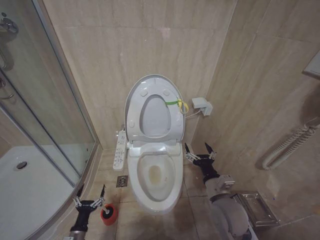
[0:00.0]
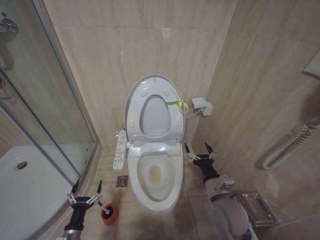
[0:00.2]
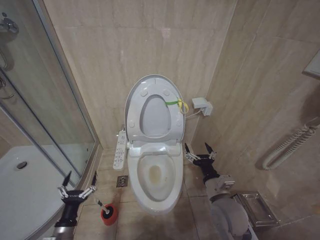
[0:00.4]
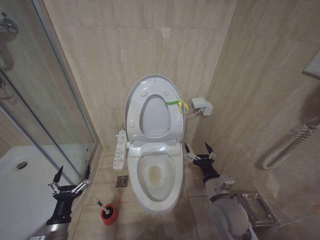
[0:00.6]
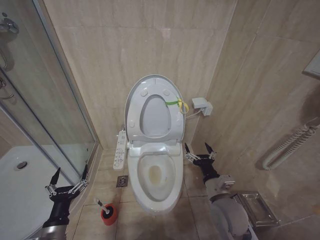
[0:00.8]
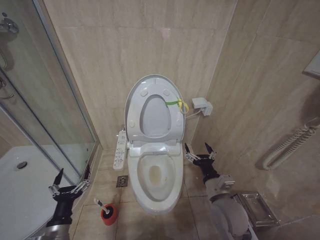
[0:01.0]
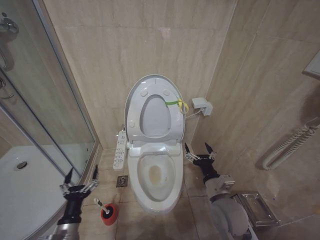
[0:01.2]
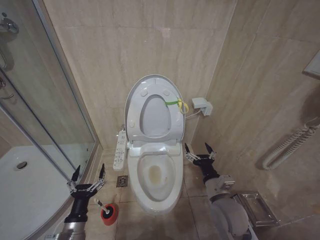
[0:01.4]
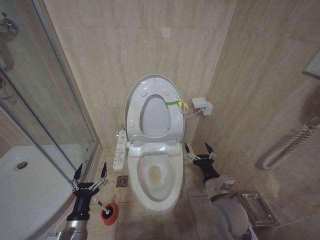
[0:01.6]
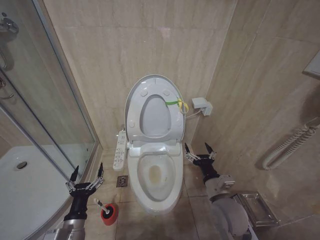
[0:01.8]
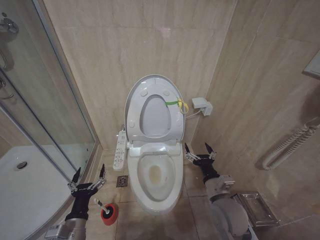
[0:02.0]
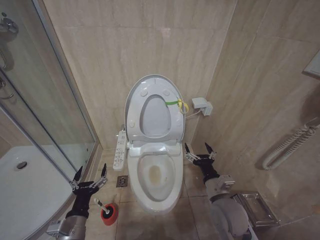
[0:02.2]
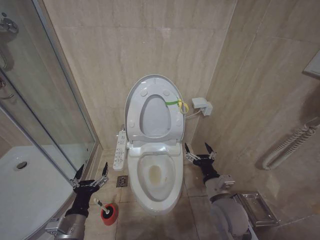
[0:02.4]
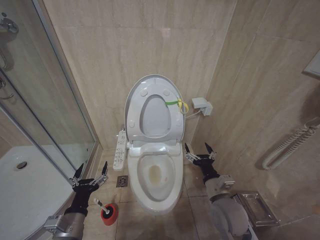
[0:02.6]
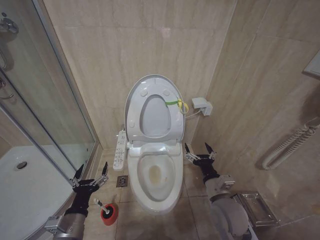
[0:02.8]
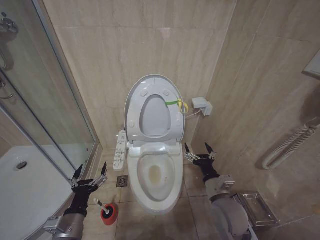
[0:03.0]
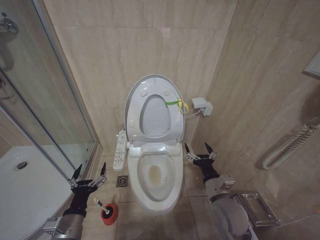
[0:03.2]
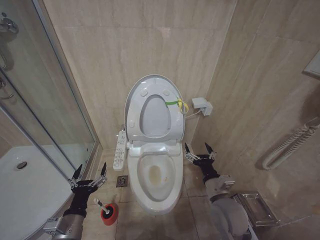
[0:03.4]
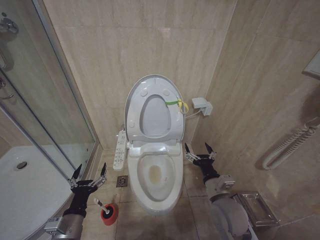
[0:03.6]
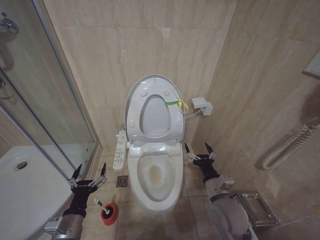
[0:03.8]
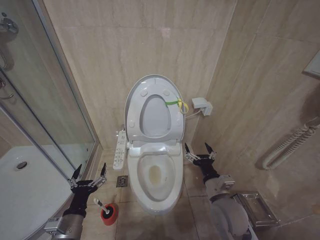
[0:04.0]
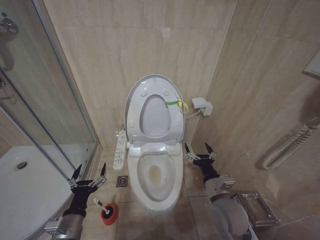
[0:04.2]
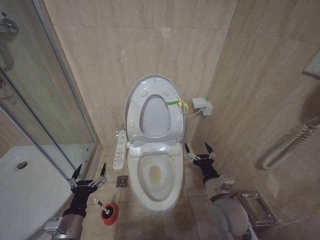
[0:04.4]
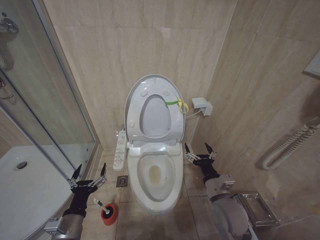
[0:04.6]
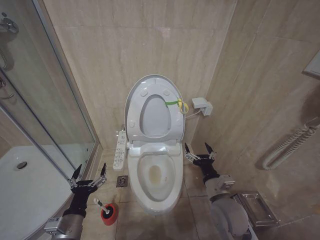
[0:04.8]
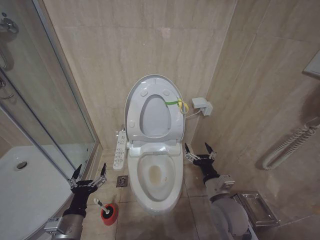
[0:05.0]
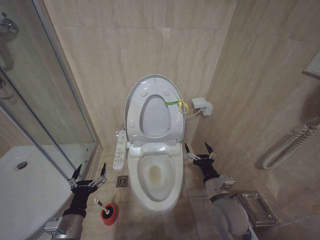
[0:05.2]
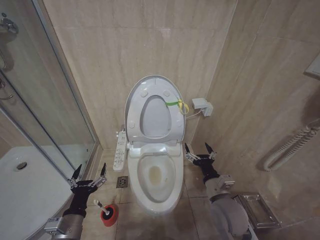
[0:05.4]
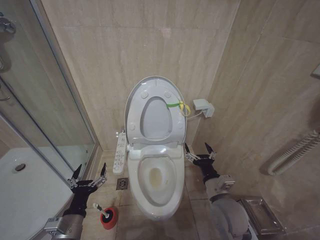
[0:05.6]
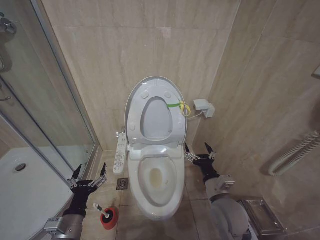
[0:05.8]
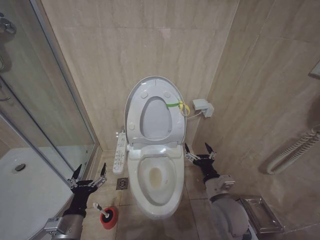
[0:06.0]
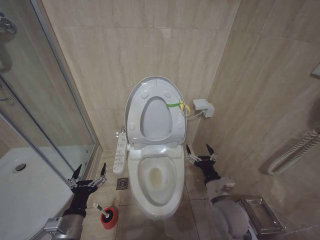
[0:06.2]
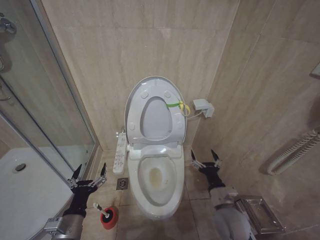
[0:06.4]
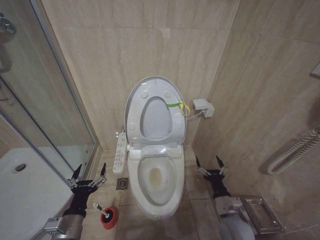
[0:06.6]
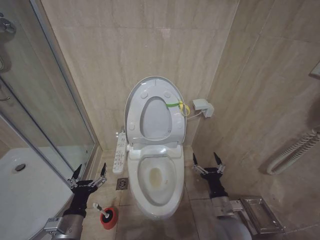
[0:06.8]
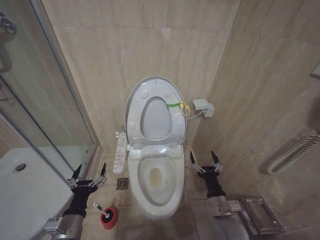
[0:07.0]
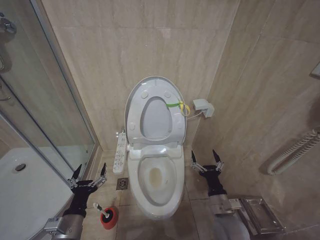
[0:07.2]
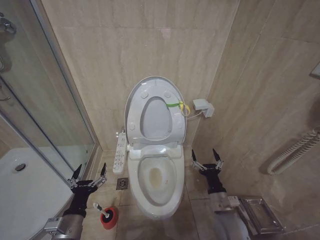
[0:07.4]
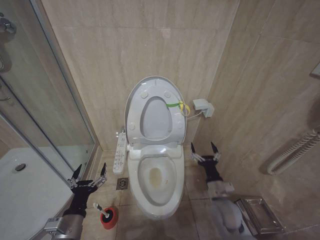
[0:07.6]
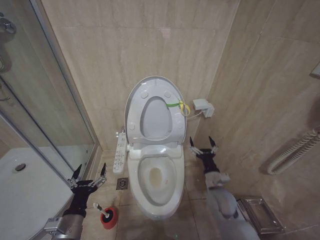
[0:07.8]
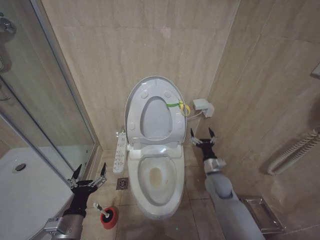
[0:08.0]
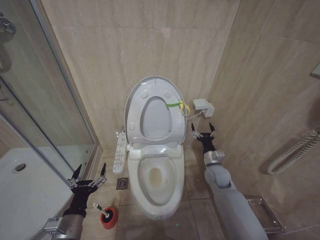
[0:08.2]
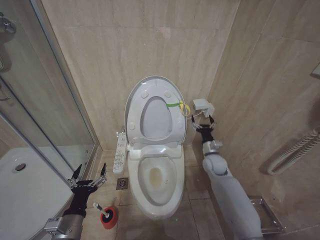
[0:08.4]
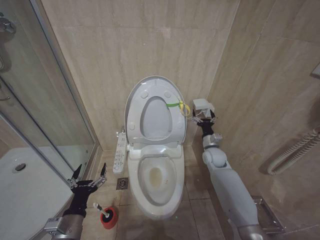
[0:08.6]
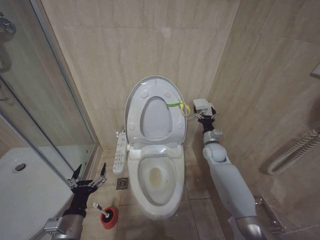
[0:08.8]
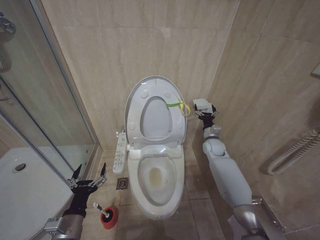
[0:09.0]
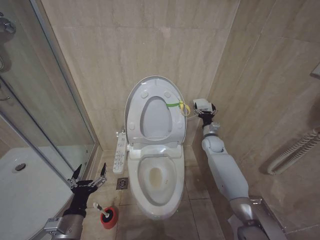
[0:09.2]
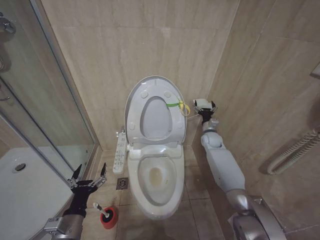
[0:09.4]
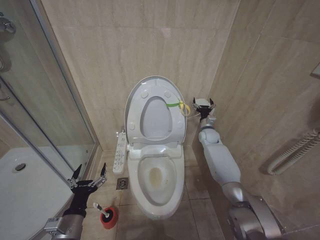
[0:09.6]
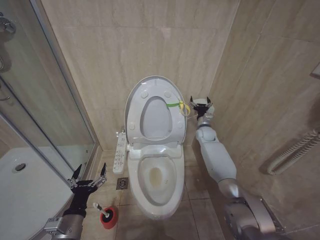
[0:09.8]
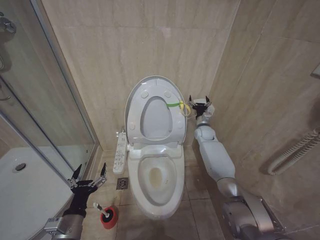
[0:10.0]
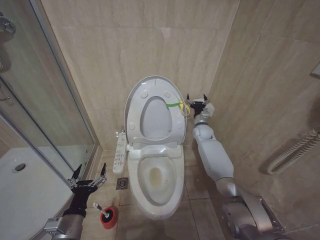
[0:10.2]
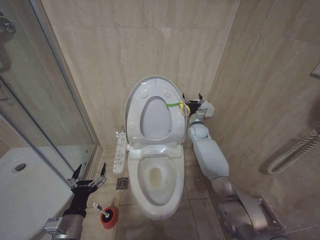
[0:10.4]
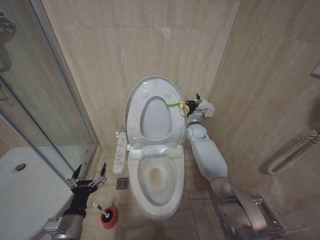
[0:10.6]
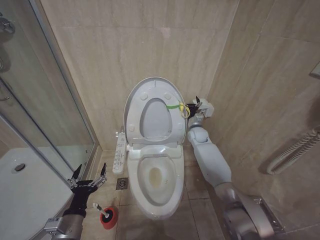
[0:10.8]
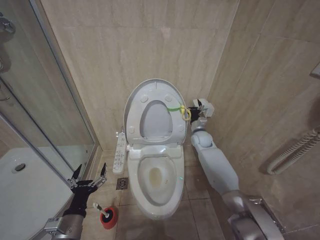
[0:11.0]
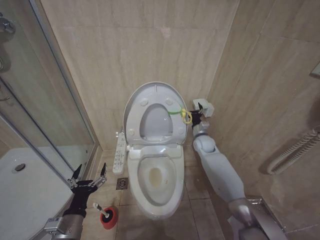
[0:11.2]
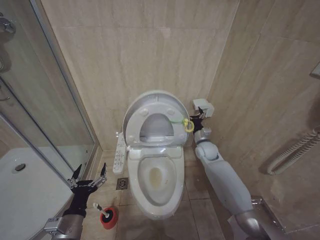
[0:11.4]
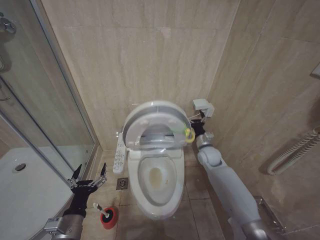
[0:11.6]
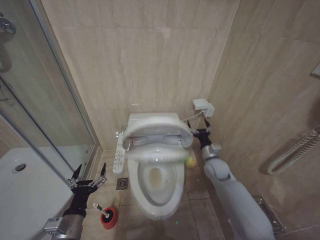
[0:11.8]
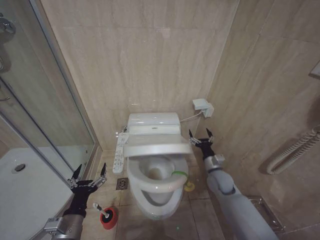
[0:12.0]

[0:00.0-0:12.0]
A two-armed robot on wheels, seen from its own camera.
Task of the whole recording: Open the toilet lid, clean the toilet bowl with a toilet brush, close the toilet lid, and flush.
0:00.0 to 0:01.6: The left gripper moves upward, roughly 20 cm.
0:01.6 to 0:03.0: The left gripper travels upward by approximately 5 cm.
0:03.0 to 0:06.0: Both grippers stay about where they are.
0:06.0 to 0:07.6: The right gripper moves downward, about 10 cm.
0:07.6 to 0:09.0: The right gripper is displaced forward by about 25 cm.
0:09.0 to 0:10.4: The right gripper is displaced forward by some 10 cm.
0:10.4 to 0:12.0: The right gripper moves backward and downward, some 20 cm.

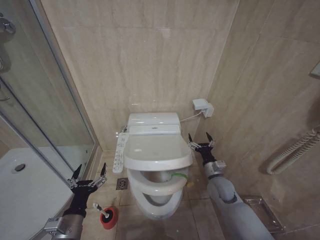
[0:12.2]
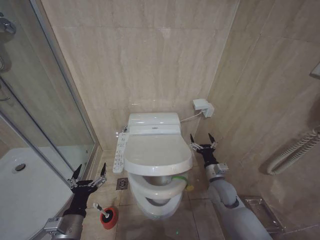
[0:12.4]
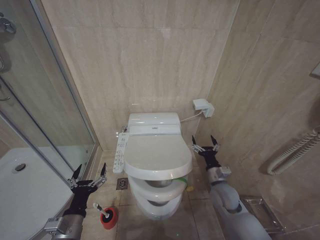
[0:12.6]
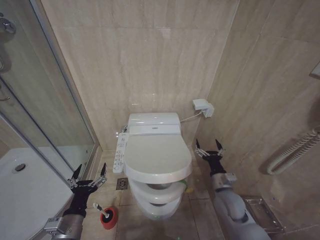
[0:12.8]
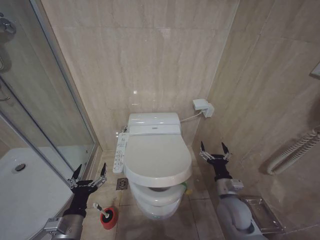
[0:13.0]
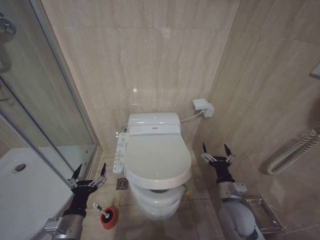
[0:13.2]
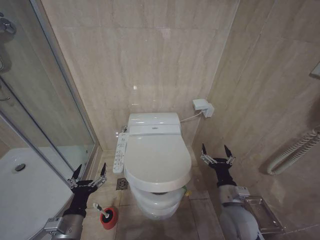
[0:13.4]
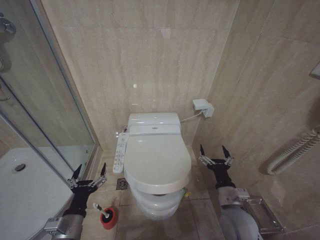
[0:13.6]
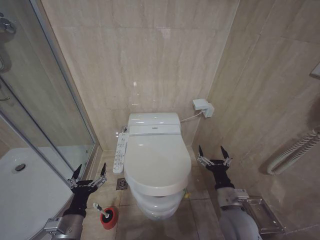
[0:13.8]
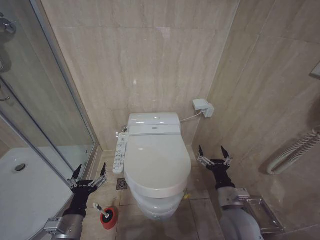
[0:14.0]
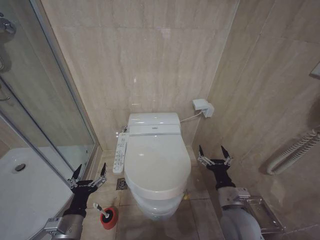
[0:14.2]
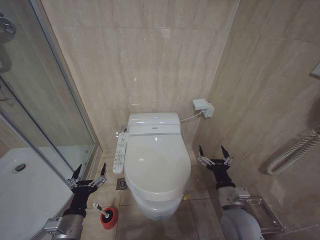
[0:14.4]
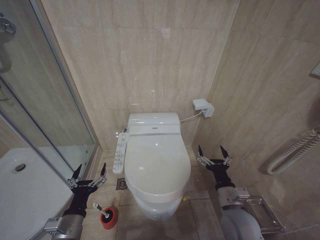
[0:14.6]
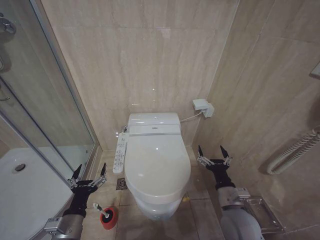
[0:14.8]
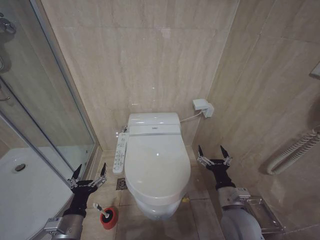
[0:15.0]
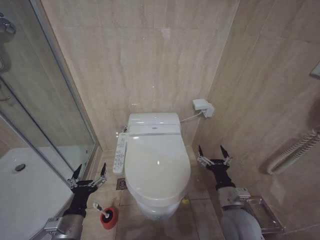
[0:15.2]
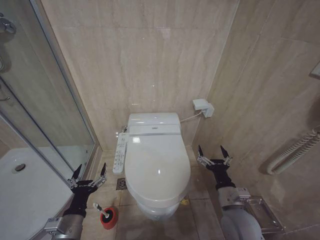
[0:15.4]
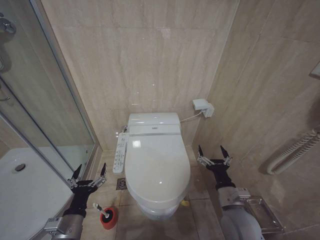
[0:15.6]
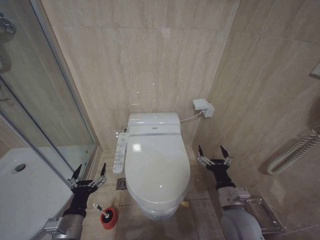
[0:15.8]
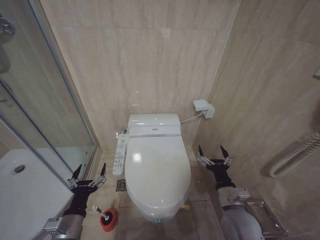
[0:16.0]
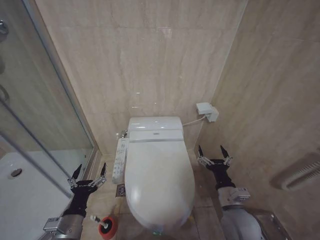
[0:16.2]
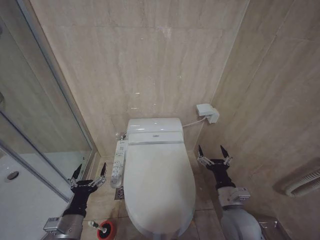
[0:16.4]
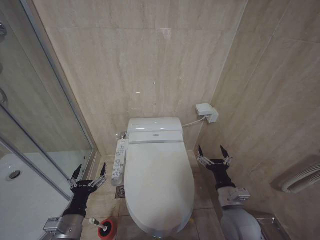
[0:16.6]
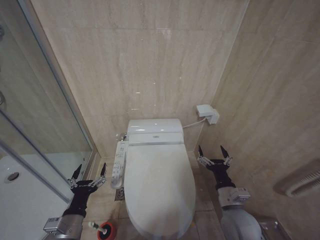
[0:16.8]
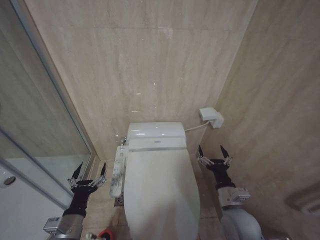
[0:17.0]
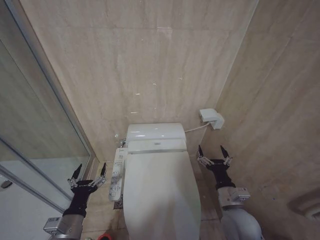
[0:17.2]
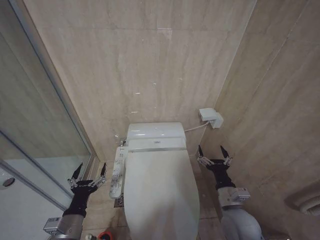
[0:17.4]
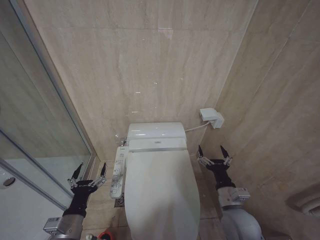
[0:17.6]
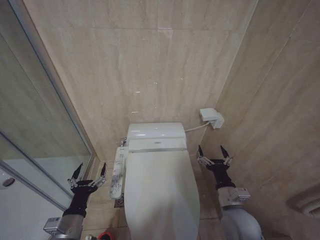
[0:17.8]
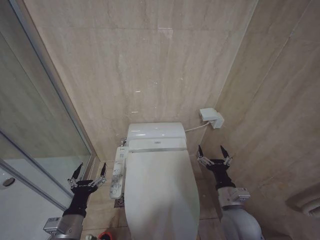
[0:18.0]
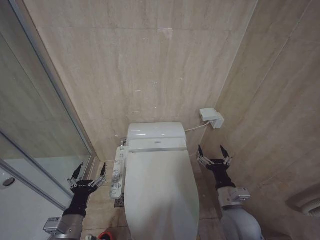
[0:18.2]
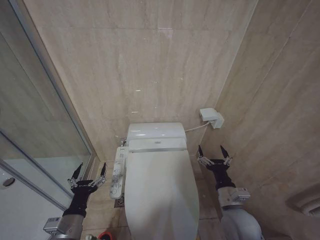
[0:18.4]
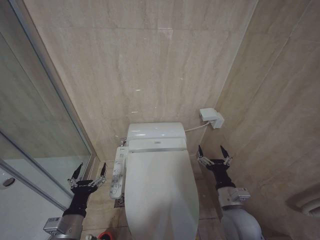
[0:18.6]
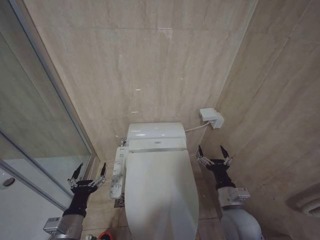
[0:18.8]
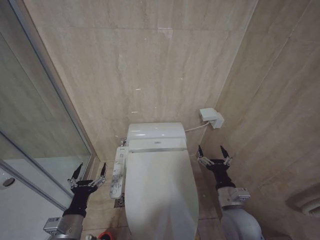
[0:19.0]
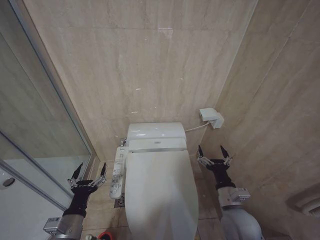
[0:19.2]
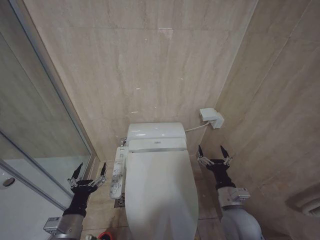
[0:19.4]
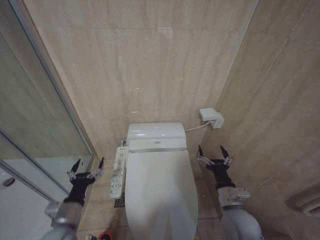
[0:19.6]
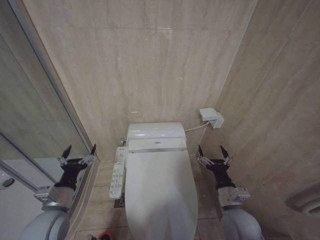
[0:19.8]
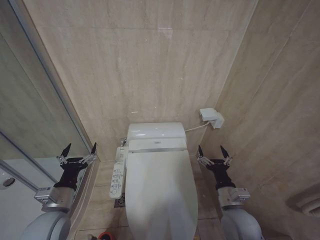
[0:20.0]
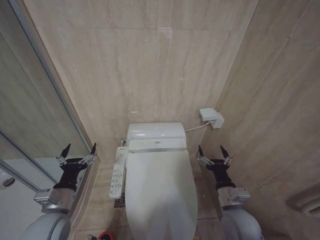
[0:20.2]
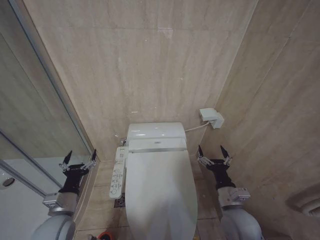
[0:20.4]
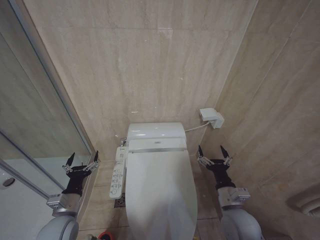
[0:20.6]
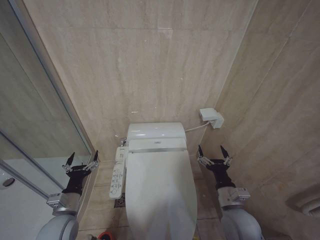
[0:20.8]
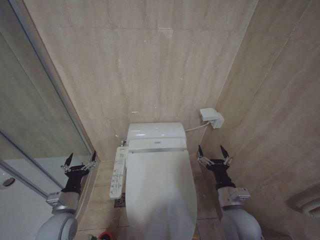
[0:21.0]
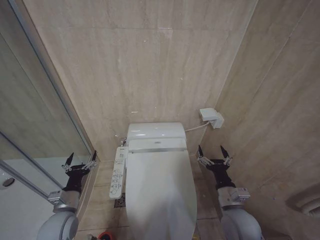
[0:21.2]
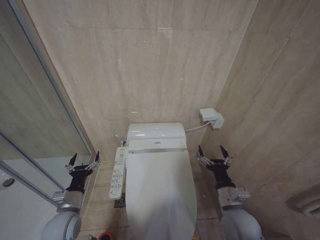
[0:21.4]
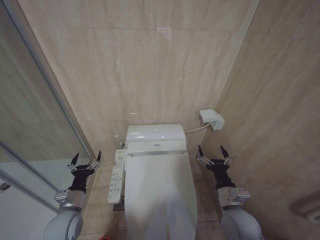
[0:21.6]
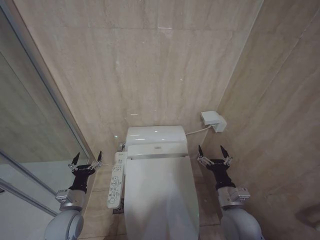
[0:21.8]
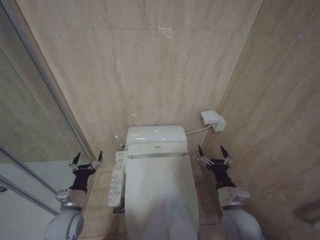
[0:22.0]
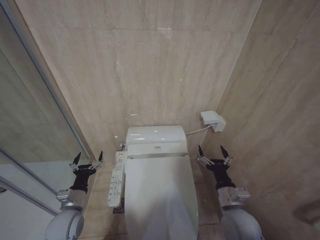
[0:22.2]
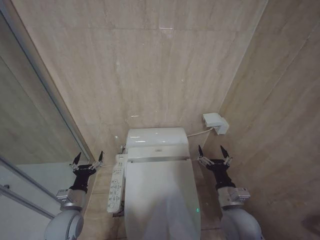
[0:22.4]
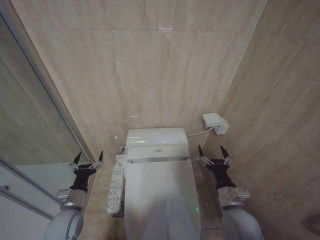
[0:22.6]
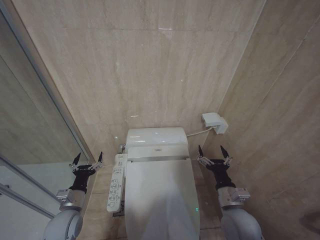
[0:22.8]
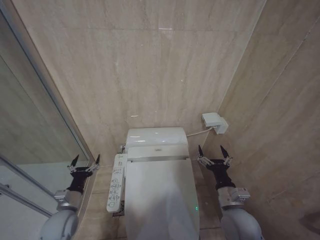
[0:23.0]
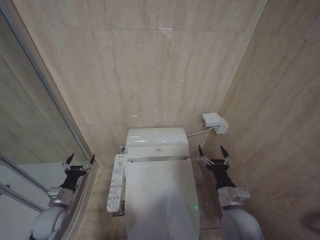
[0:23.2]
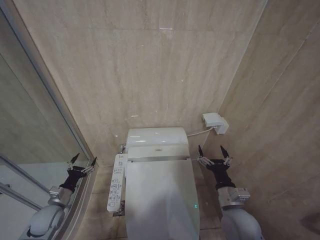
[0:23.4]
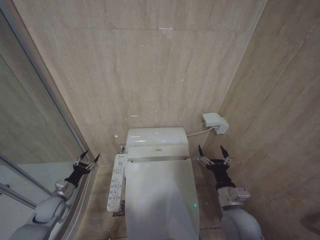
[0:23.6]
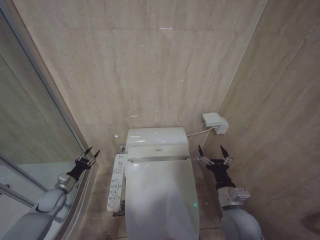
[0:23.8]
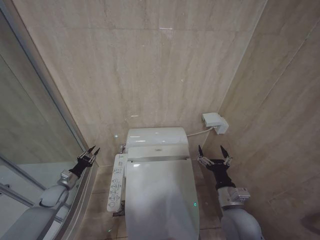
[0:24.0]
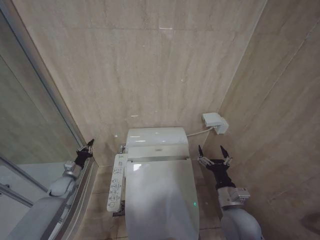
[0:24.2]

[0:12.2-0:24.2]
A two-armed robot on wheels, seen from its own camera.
Task of the whole recording: Open the toilet lid, clean the toilet bowl with a toilet brush, close the toilet lid, and flush.
0:12.2 to 0:13.8: The right gripper shifts about 15 cm backward.
0:13.8 to 0:18.2: Both grippers stay put.
0:18.2 to 0:19.8: The left gripper ends up about 5 cm from where it was.
0:19.8 to 0:21.2: The left gripper ends up roughly 5 cm from where it was.
0:21.2 to 0:22.6: The grippers make only small movements.
0:22.6 to 0:24.2: The left gripper is displaced forward, to the left and downward by about 20 cm, and closes up.
